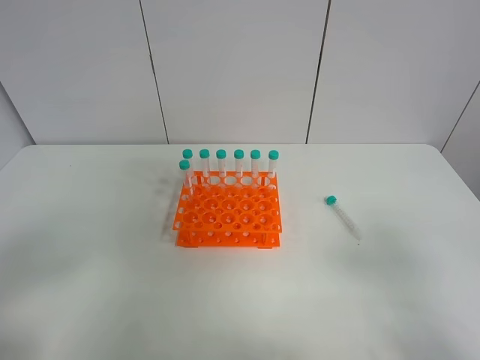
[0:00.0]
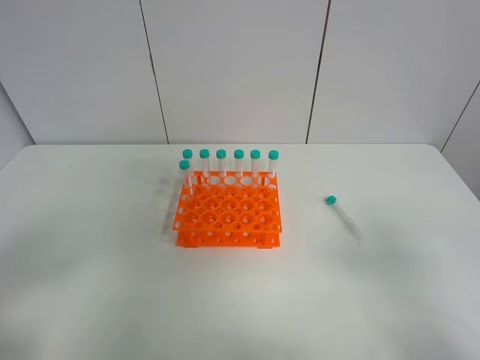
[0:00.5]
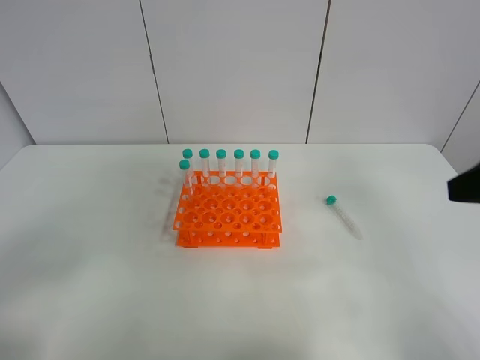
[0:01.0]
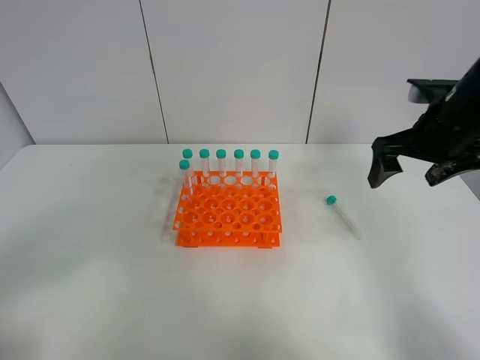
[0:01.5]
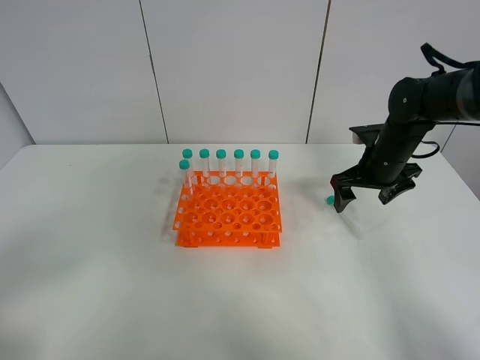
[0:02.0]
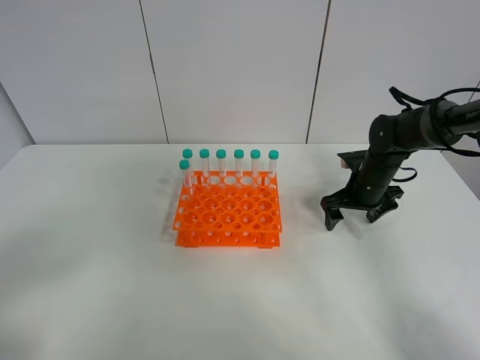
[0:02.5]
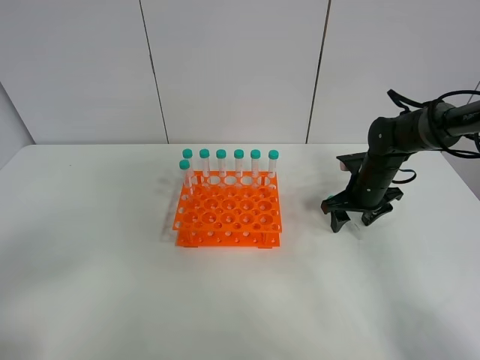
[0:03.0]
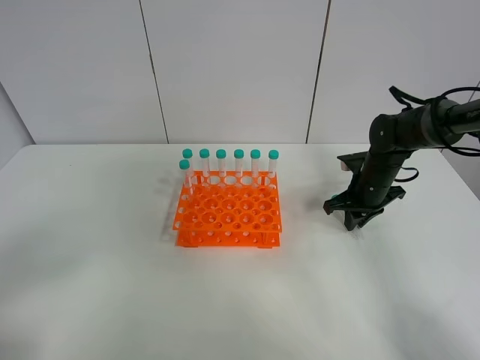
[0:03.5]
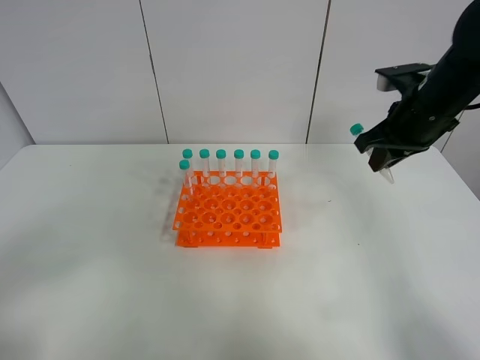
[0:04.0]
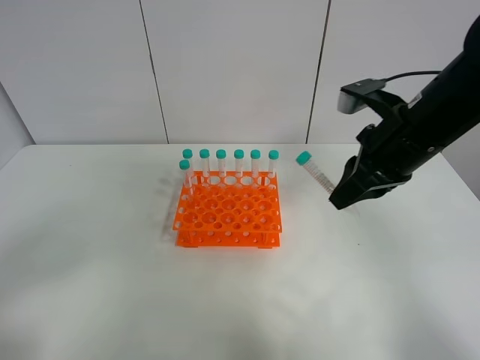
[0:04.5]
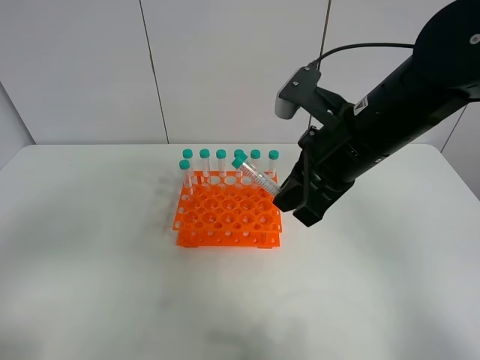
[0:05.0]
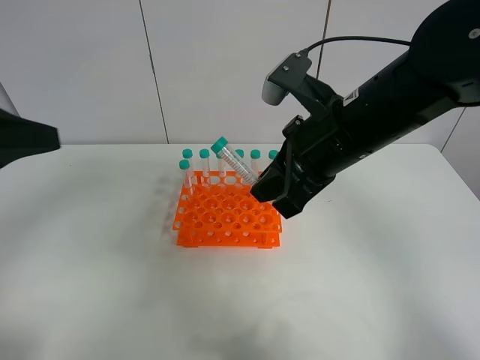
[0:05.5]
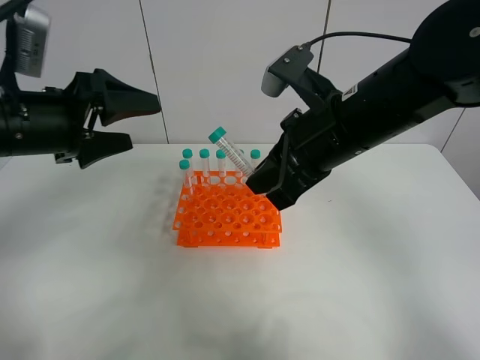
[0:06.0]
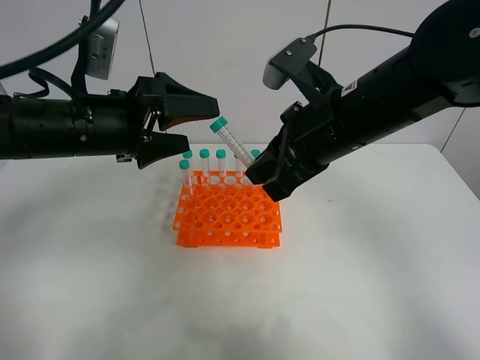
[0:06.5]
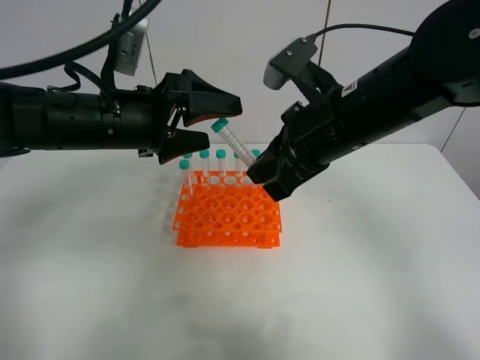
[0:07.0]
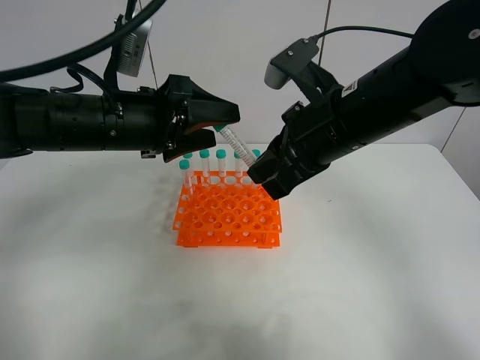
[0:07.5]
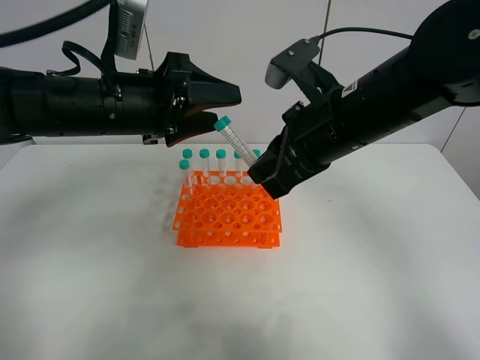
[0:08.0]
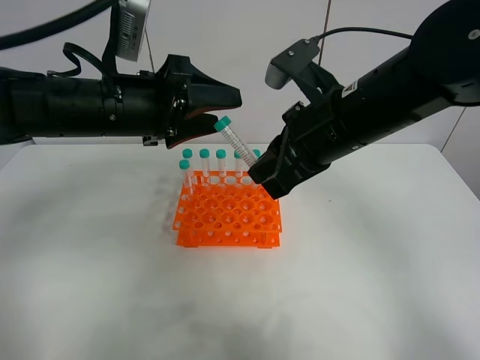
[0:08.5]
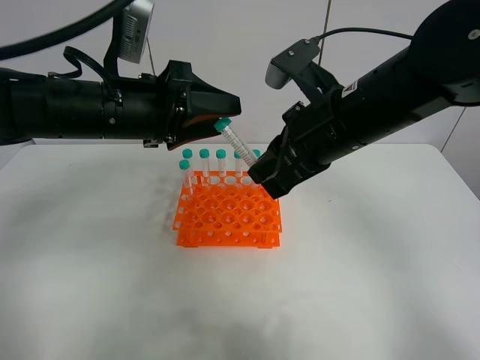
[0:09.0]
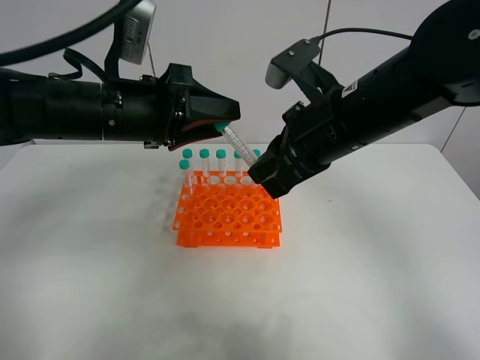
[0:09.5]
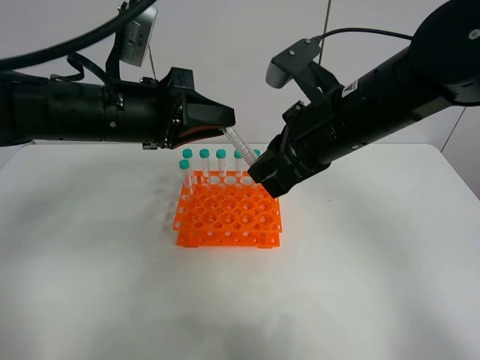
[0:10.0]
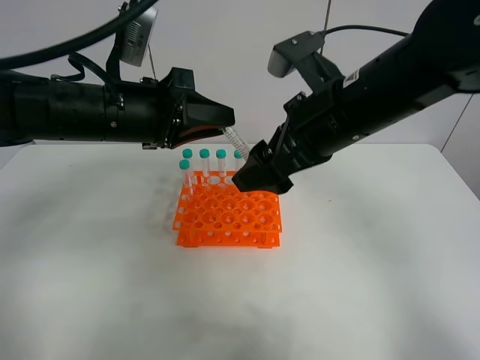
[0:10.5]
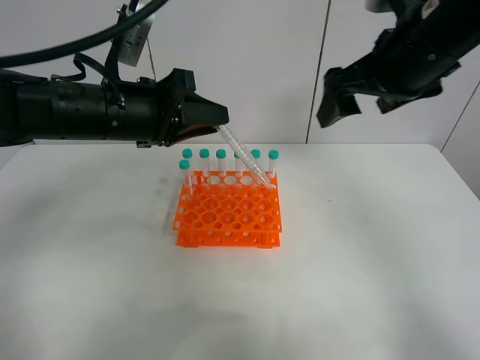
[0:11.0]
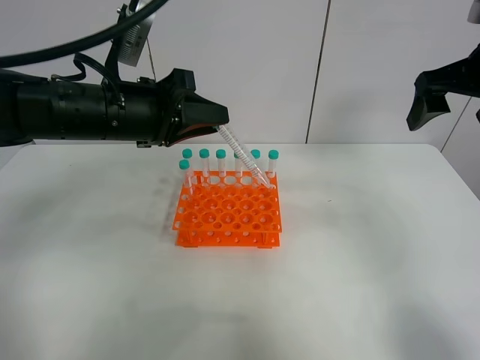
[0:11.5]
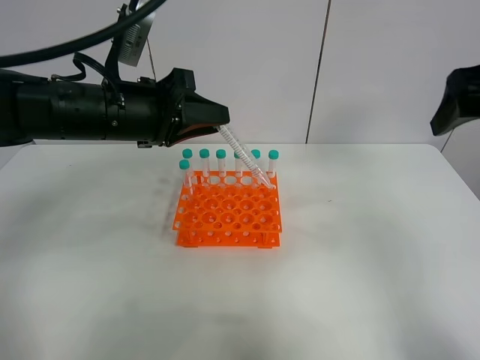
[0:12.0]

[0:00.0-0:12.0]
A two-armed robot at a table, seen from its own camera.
Task of the whole recording: Put the test tube on the table back onto the test tube rack.
Step, 0:00.0 to 0:03.5: Pick up the test tube with the right gripper.
Step, 0:04.0 to 0:10.5: Move the test tube from the right gripper to the left gripper.
0:00.0 to 0:02.0: The right gripper is displaced forward by roughly 40 cm.
0:02.0 to 0:04.0: The right gripper heads upward and backward, covering roughly 15 cm, and closes.
0:04.0 to 0:06.0: The left gripper travels forward by about 25 cm. The right gripper goes about 15 cm to the left and backward.
0:06.0 to 0:08.0: The left gripper shifts some 10 cm to the right, and closes up.
0:08.0 to 0:10.0: The left gripper closes up.
0:10.0 to 0:12.0: The right gripper shifts about 20 cm to the right and upward, and opens its fingers.

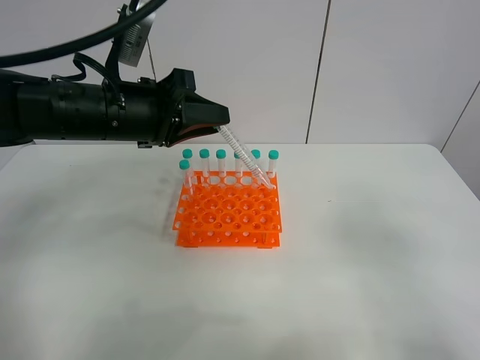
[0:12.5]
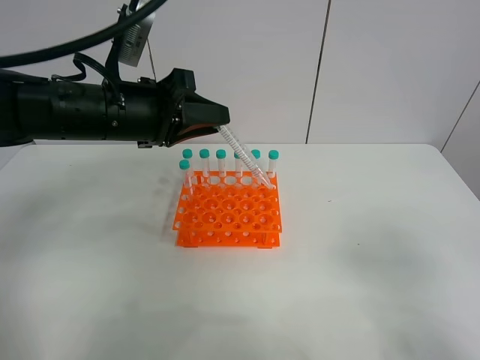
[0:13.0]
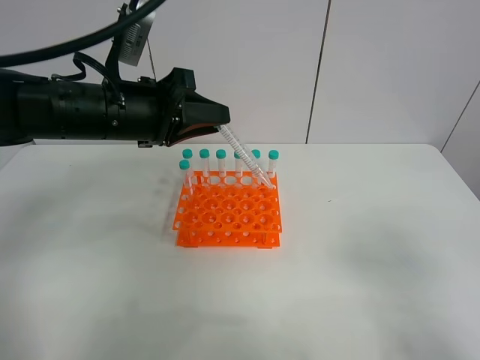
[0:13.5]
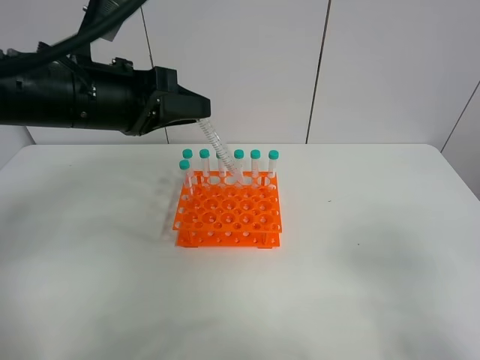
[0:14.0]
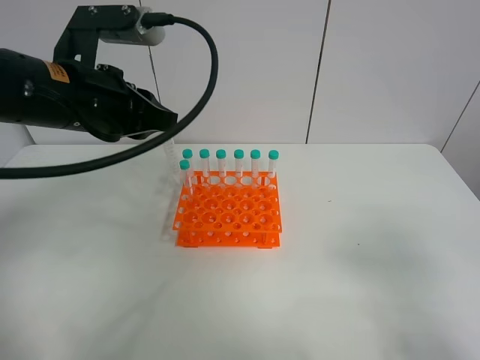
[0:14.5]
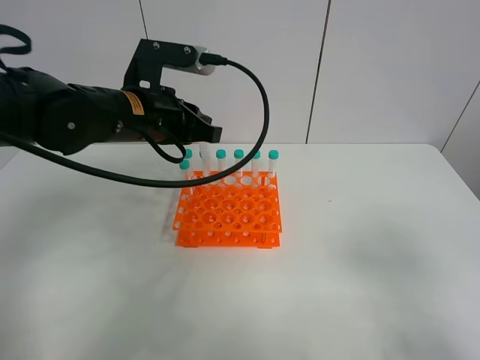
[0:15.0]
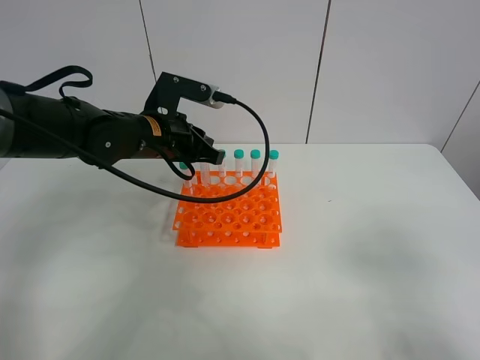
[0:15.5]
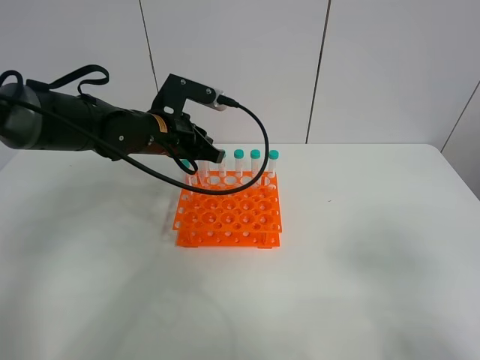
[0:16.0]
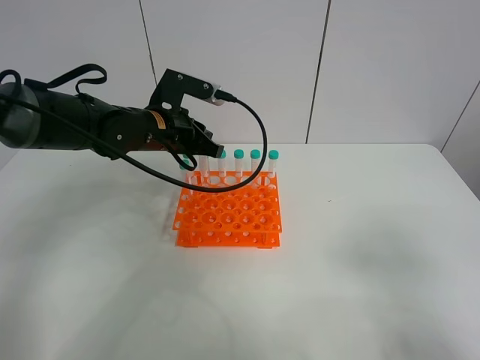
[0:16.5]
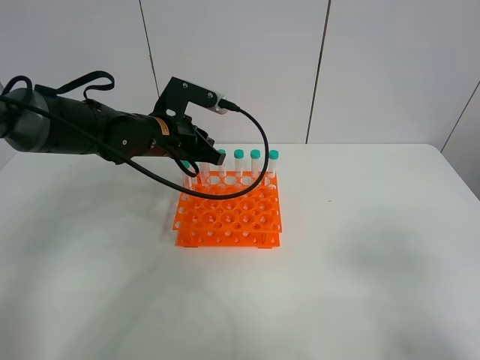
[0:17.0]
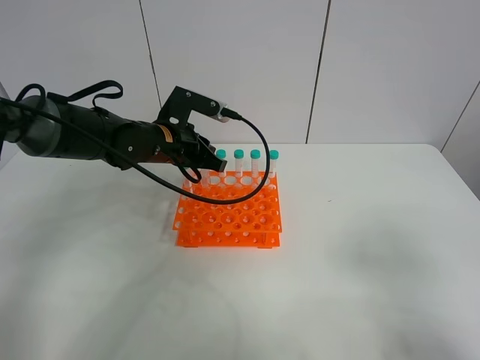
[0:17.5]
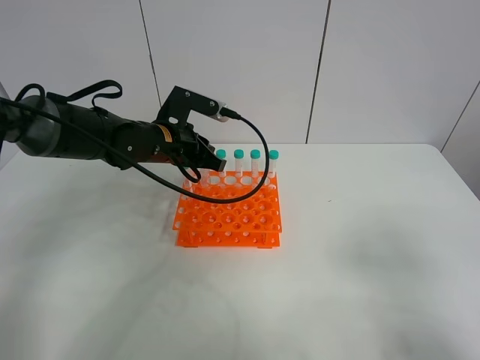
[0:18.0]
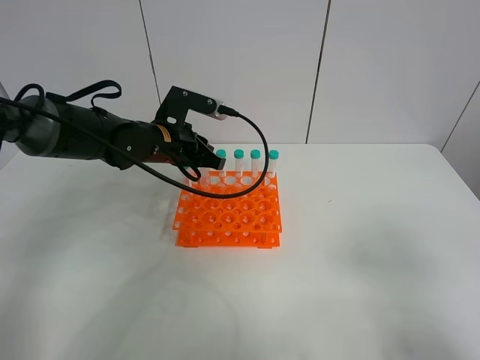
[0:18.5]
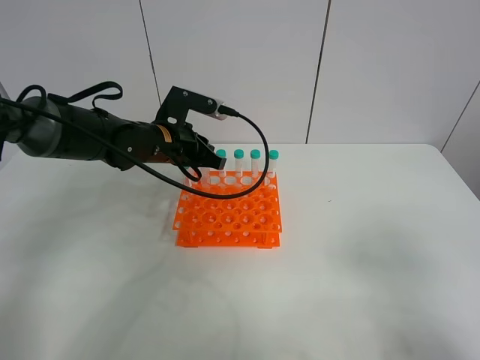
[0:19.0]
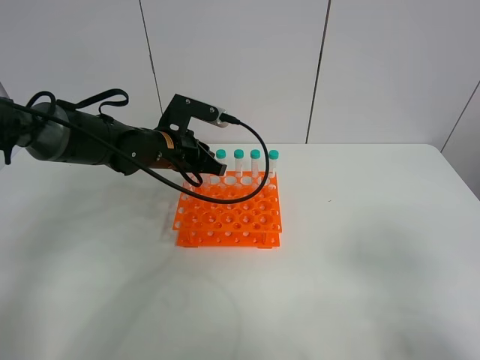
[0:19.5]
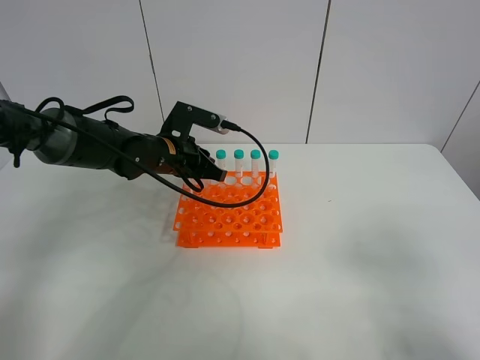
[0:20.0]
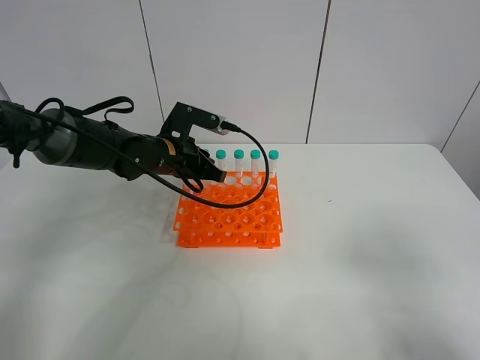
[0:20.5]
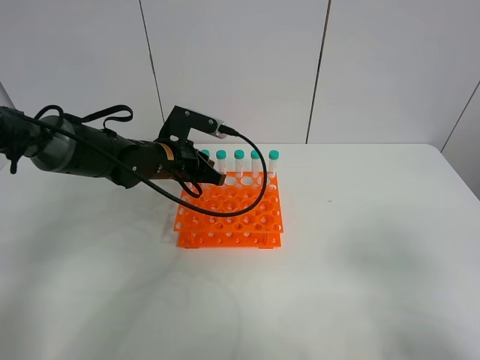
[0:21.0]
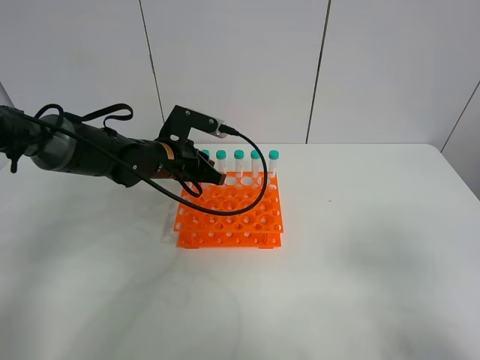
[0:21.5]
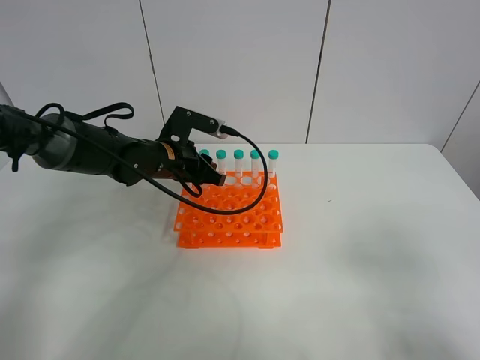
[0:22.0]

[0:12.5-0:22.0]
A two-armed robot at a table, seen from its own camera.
Task of the whole recording: Put the test tube on the table back onto the test tube rack.
0:12.5 to 0:14.5: The right gripper moves some 5 cm.
0:14.5 to 0:16.5: The left gripper is displaced forward and downward by roughly 15 cm.
0:16.5 to 0:20.0: There are only small adjustments of the grippers.
0:20.0 to 0:22.0: The left gripper opens.

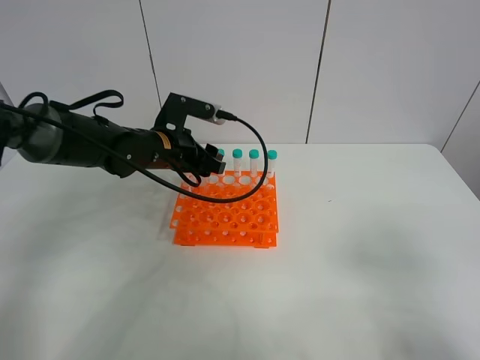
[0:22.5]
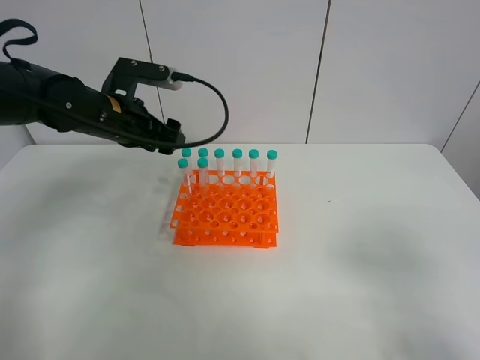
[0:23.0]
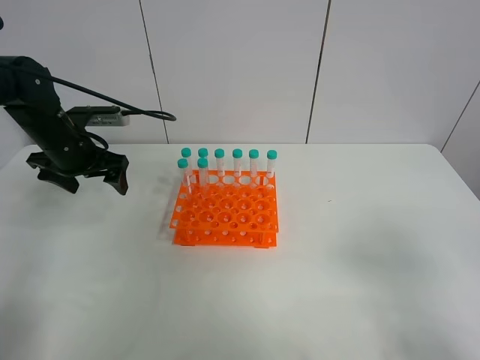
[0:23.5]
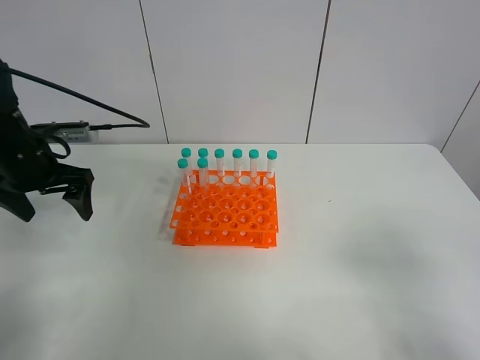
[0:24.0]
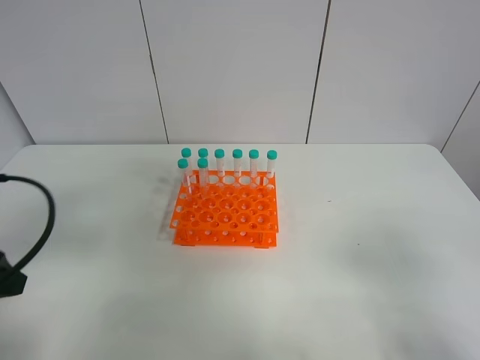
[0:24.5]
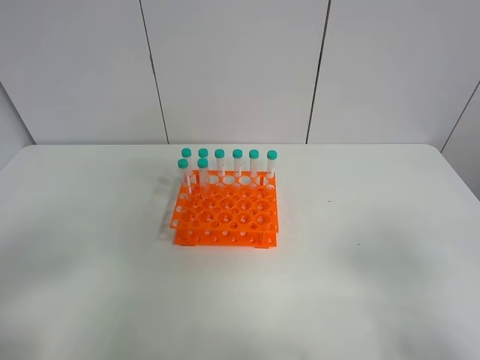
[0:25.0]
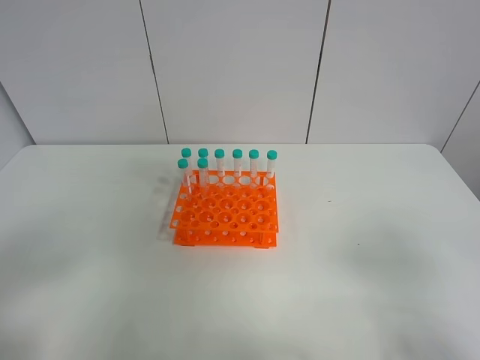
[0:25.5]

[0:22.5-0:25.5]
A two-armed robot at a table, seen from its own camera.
Task of the whole recording: Put the test tube on the table back onto the test tube rack.
0:22.5 to 0:24.0: The left gripper is displaced to the left by roughly 15 cm, and opens its fingers.
0:24.0 to 0:25.5: The left gripper is displaced backward by approximately 30 cm.

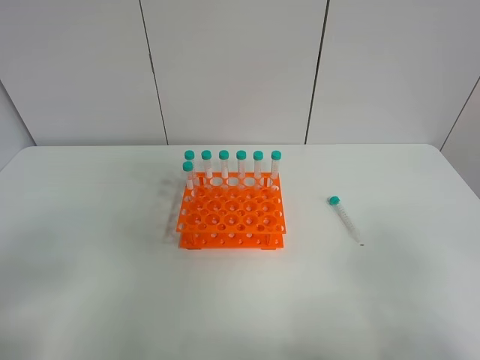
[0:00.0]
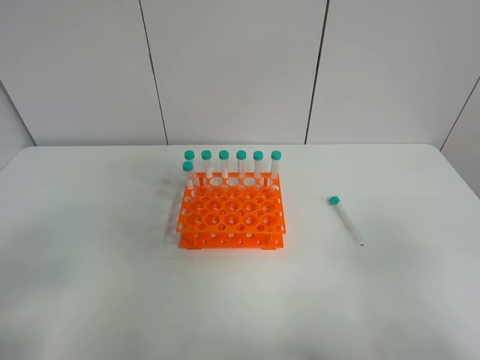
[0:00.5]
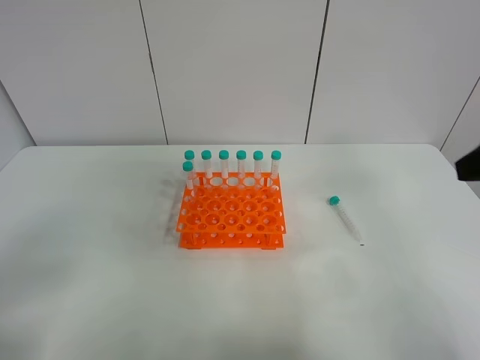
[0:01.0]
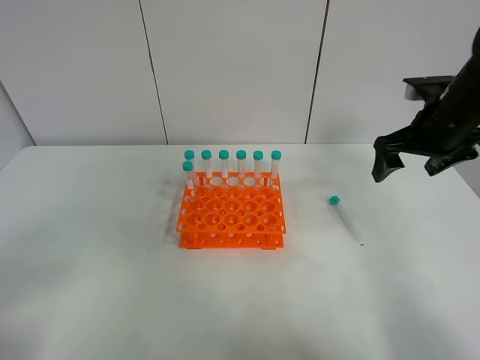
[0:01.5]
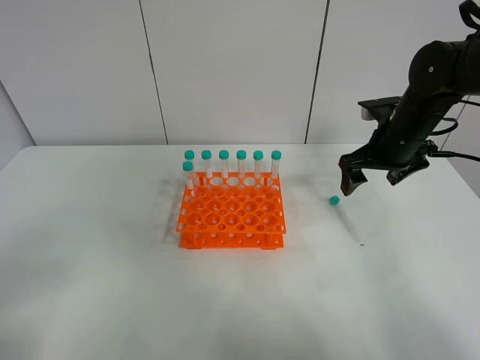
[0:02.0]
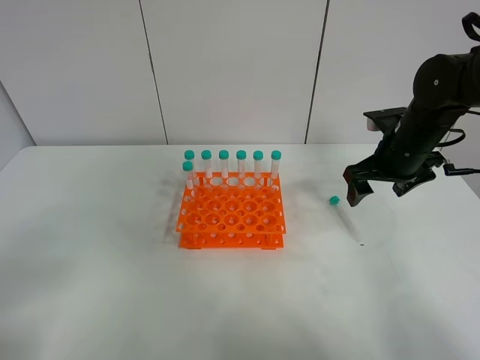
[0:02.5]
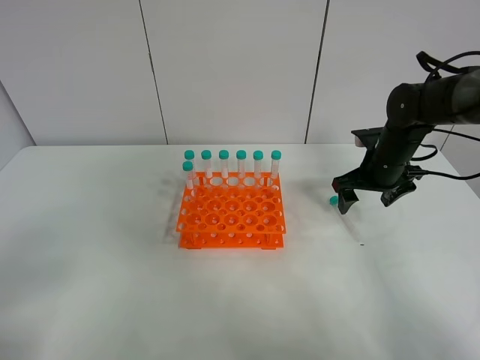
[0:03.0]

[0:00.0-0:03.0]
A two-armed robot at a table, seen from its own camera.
Task of the whole recording: Put the test tube on the table back onto the test tube rack.
0:00.0 to 0:01.5: The right gripper moves forward, roughly 35 cm.
0:01.5 to 0:03.0: The right gripper moves downward, approximately 10 cm.
